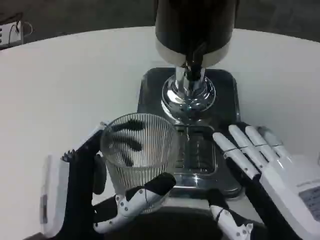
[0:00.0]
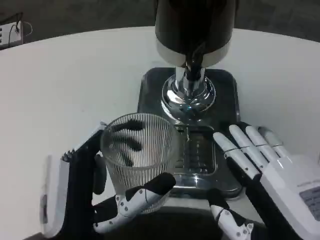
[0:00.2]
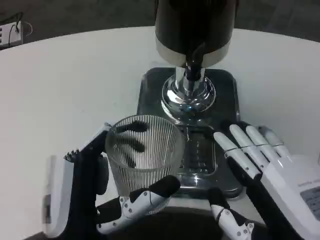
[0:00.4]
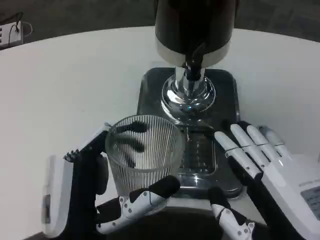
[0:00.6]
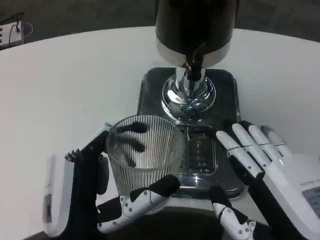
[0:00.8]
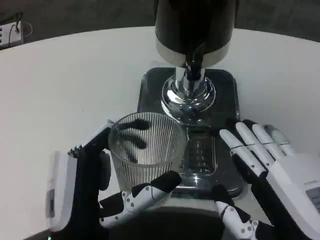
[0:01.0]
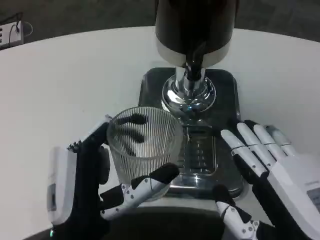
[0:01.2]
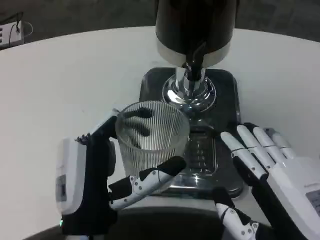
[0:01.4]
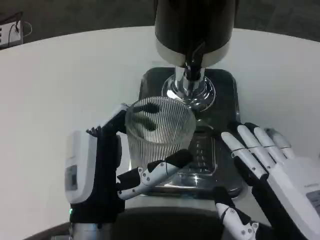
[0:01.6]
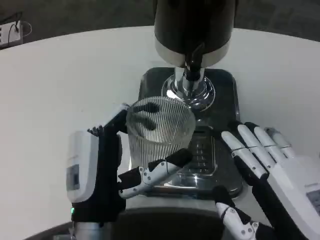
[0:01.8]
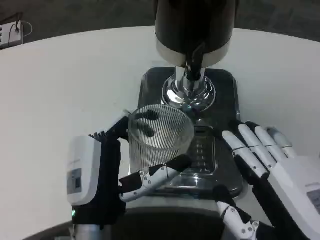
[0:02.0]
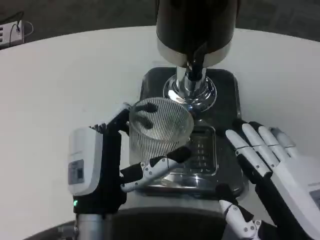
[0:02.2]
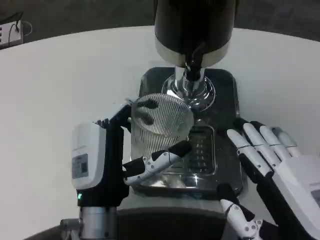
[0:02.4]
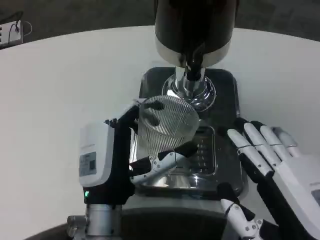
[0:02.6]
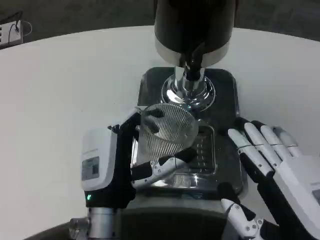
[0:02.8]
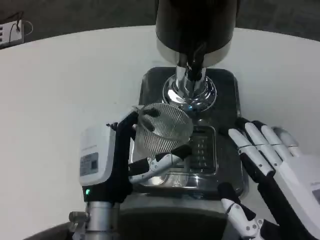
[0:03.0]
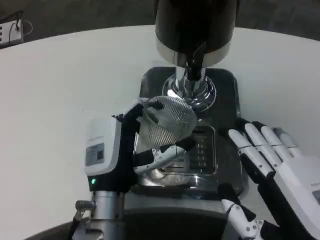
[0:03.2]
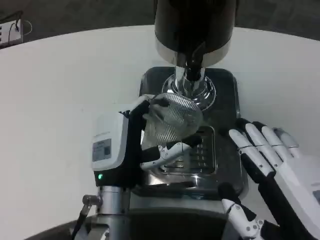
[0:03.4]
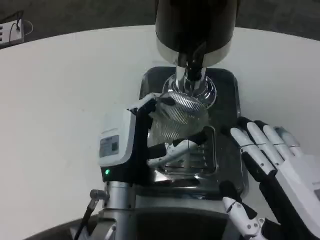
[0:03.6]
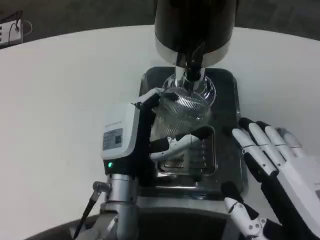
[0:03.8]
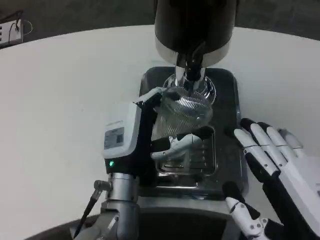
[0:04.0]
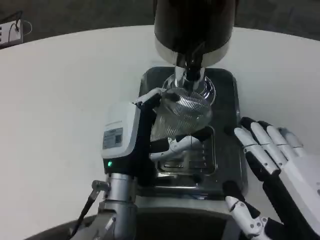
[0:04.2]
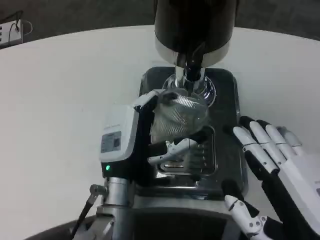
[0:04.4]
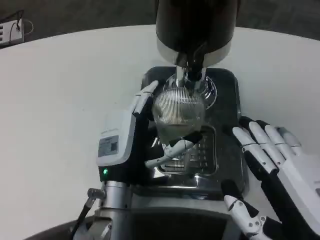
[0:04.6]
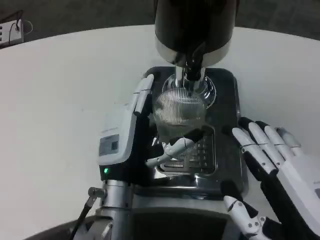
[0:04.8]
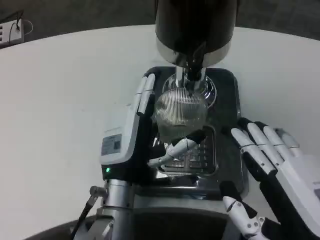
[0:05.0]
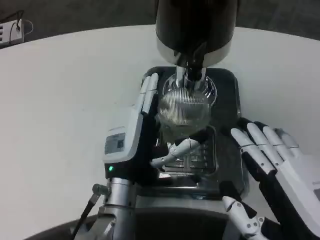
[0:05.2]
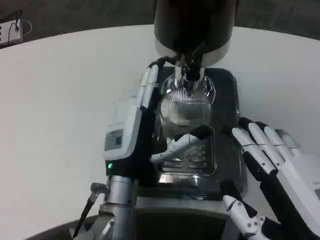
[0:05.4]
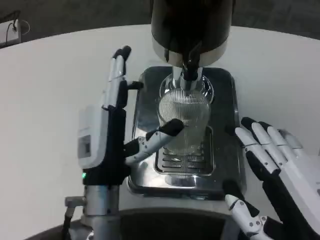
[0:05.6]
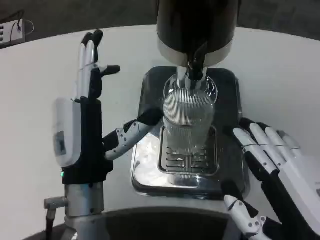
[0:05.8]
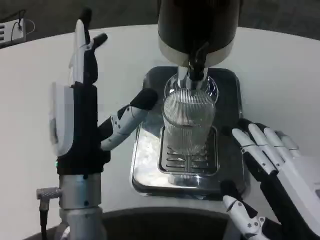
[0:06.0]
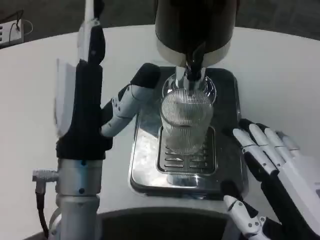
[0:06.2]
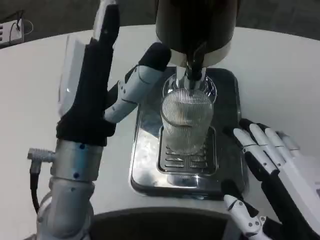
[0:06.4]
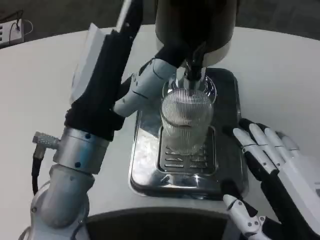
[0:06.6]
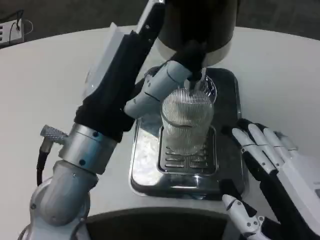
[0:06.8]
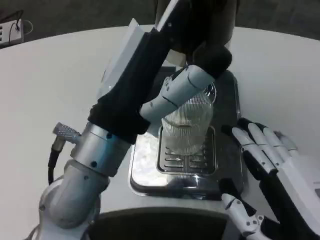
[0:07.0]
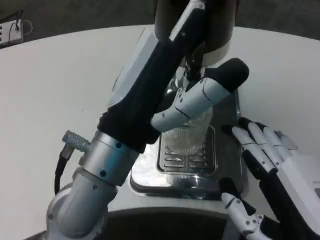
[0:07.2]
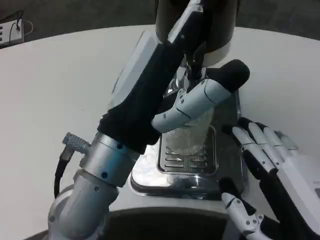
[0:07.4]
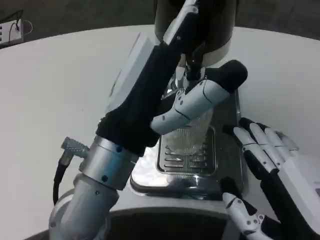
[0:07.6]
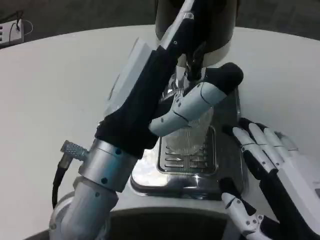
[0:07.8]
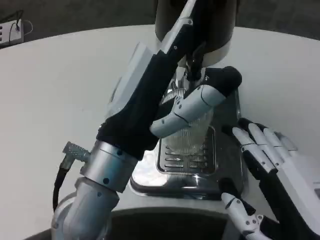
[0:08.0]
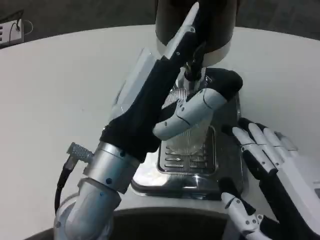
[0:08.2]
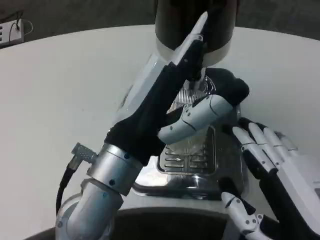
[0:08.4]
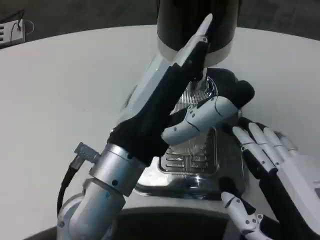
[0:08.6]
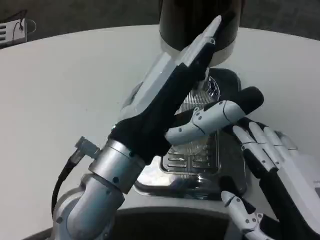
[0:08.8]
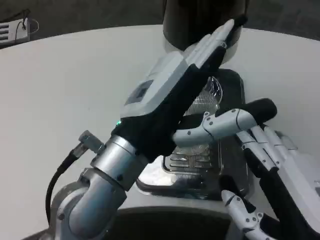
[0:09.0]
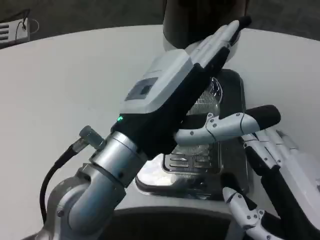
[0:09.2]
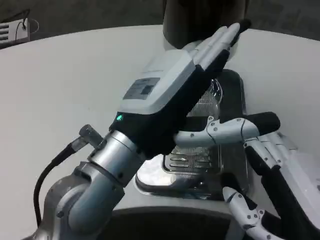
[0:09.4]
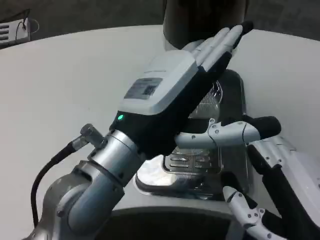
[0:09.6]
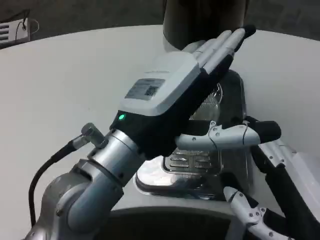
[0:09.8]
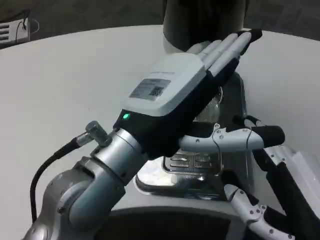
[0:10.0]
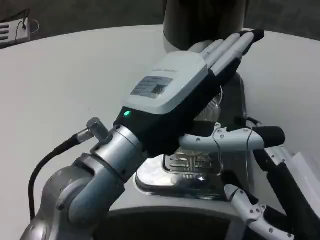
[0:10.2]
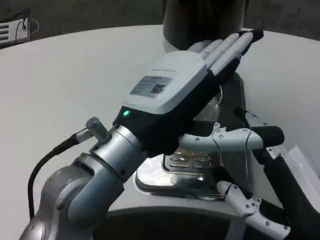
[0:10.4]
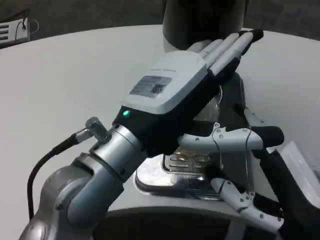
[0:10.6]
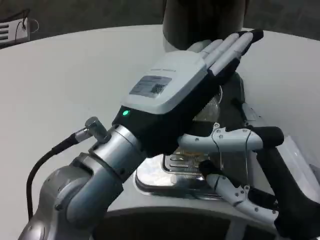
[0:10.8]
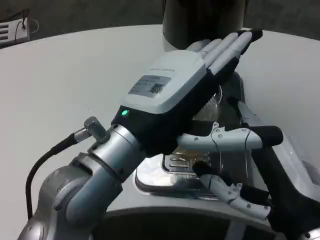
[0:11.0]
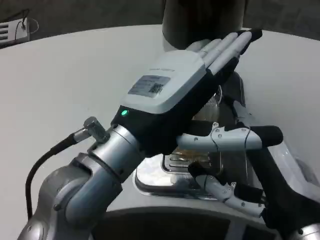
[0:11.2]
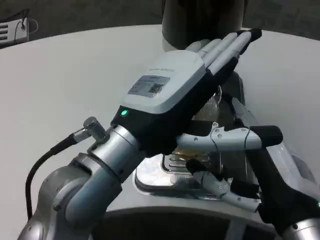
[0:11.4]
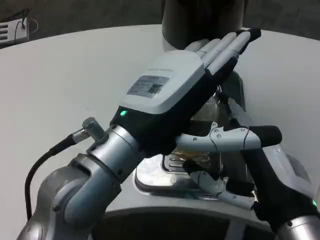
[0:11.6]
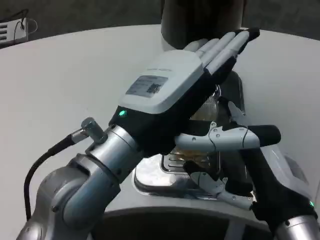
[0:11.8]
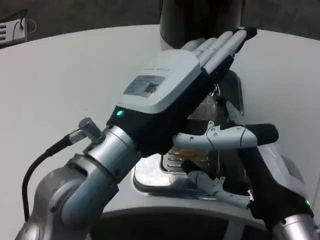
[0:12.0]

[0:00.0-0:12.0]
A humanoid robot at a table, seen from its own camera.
Task of the whole recording: Grasp the cup under the faucet to collect the drink, then remove the cup.
0:00.0 to 0:01.6: The left hand heads forward, covering some 5 cm.
0:01.6 to 0:03.0: The left hand shifts about 5 cm forward.
0:03.0 to 0:04.4: The hands make only small movements.
0:04.4 to 0:06.0: The left hand heads upward and backward, covering roughly 10 cm.
0:06.0 to 0:07.6: The left hand is displaced upward by about 5 cm.
0:10.4 to 0:12.0: The right hand travels forward by about 5 cm.

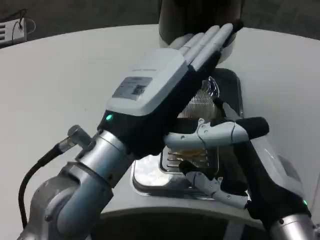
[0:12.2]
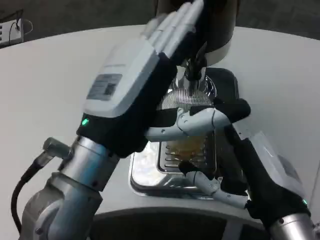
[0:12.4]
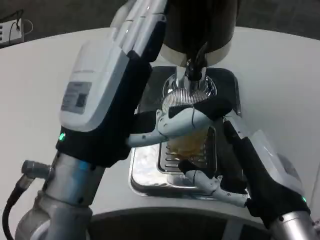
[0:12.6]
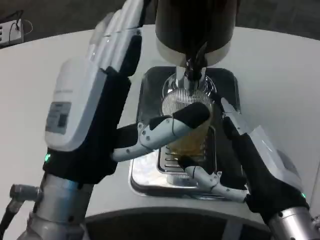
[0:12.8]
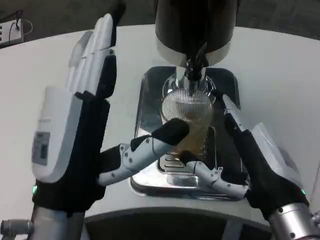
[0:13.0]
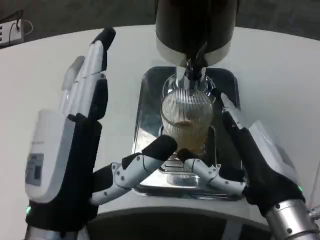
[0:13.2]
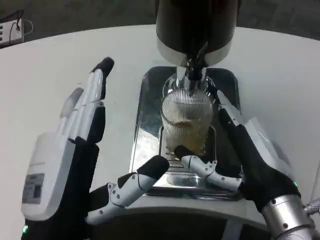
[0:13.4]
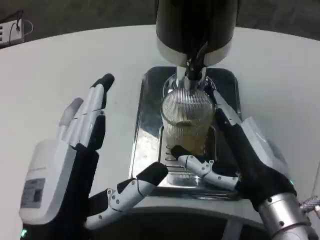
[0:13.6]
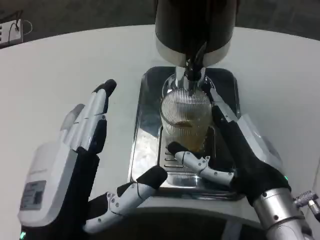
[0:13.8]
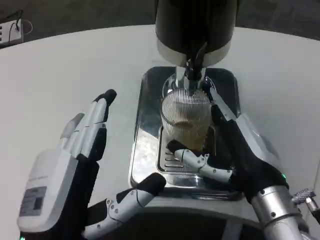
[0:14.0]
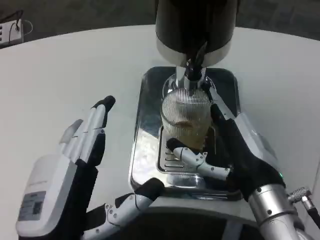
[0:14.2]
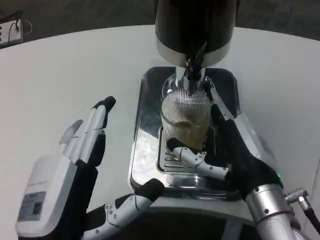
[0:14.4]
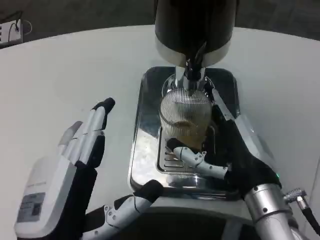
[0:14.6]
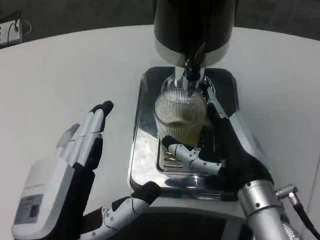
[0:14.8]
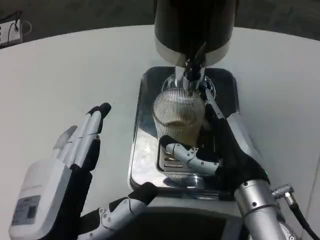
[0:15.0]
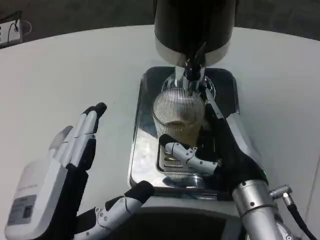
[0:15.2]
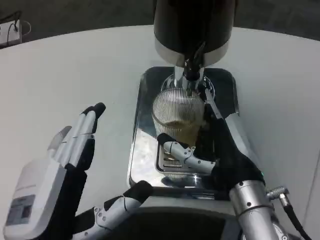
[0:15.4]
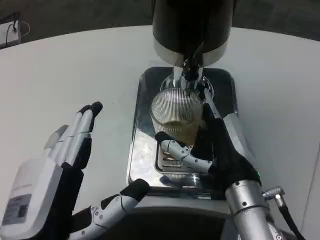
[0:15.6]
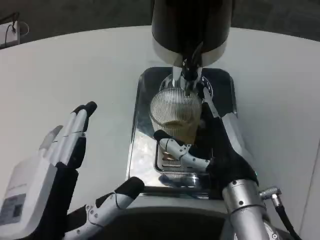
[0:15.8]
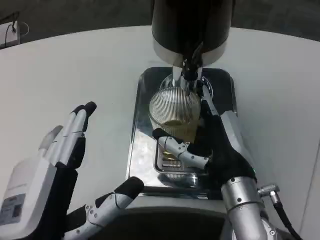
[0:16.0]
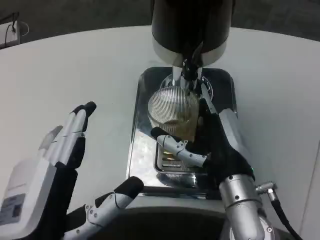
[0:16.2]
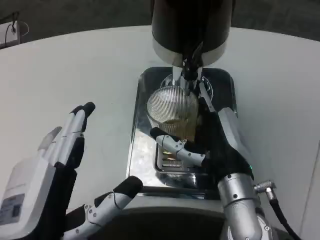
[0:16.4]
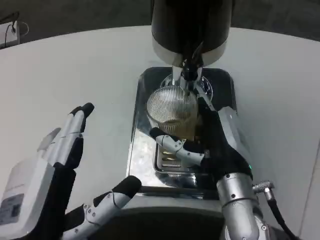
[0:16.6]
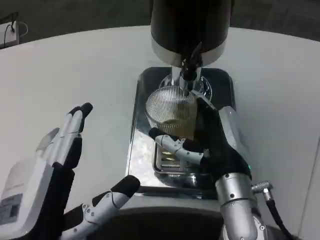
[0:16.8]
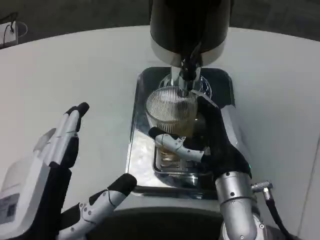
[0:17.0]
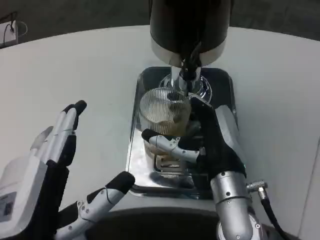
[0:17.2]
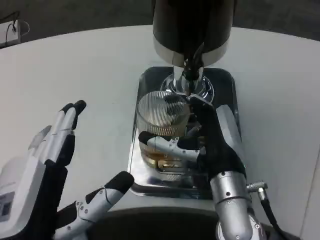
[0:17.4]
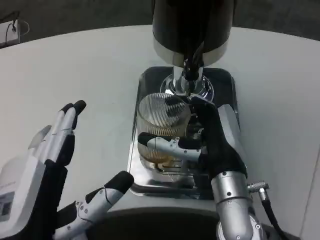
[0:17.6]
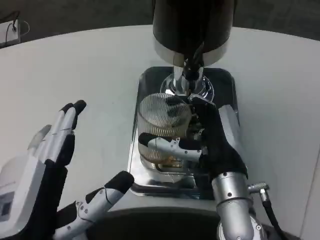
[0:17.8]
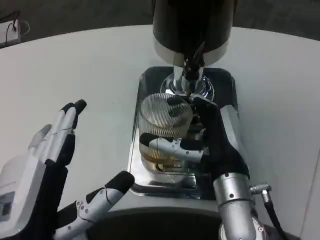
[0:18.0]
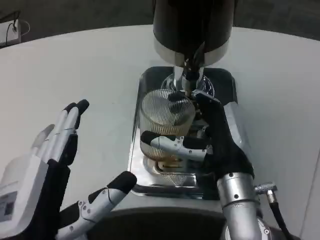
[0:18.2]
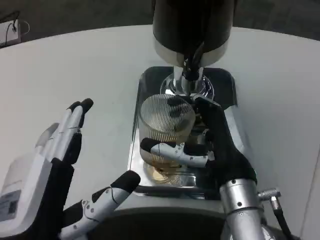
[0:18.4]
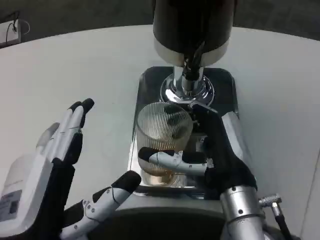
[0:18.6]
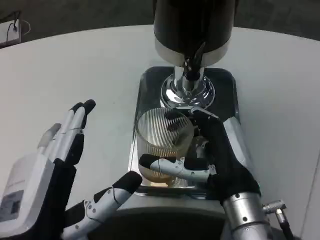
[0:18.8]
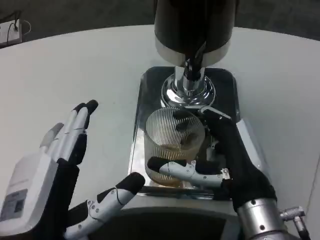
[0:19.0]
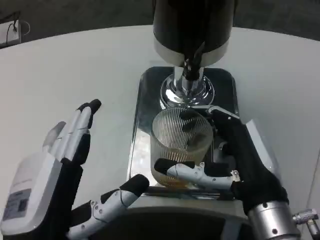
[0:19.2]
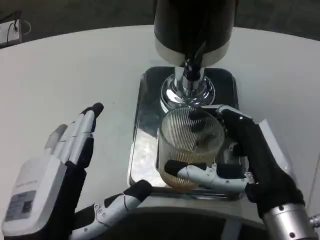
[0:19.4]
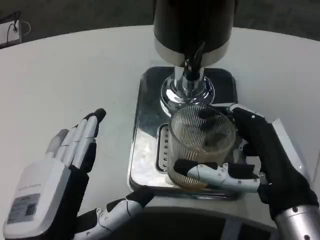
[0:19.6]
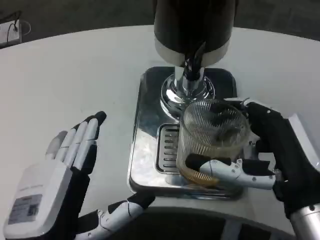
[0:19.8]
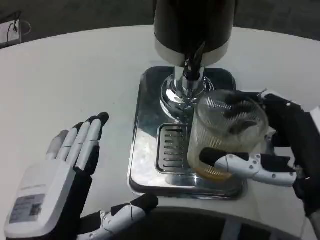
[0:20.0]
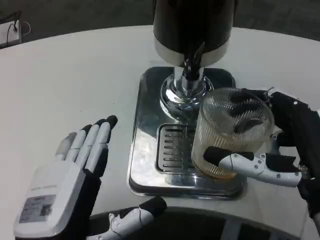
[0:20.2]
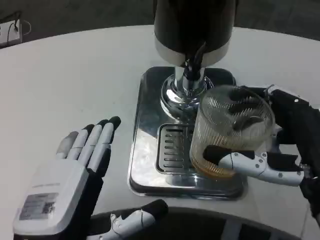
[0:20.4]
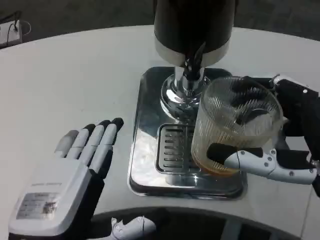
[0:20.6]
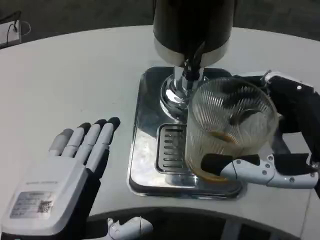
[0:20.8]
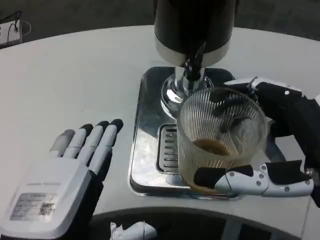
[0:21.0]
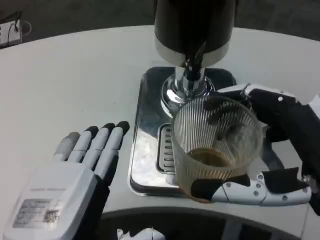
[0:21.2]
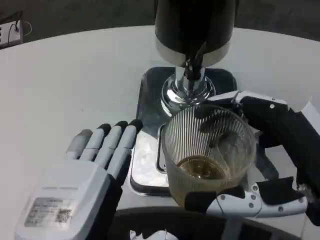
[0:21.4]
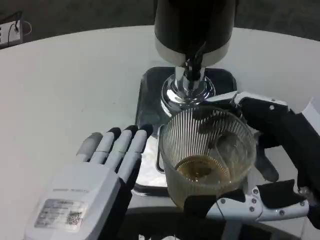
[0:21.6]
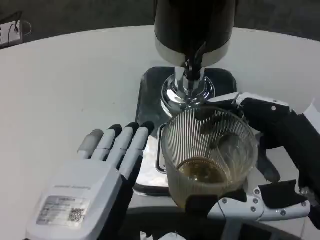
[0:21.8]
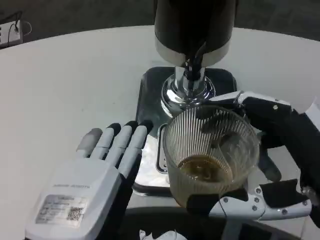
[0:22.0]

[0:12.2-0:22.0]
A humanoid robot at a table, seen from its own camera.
Task of the whole recording: Grasp the cup under the faucet to collect the drink, then remove the cup.
0:12.2 to 0:13.6: The left hand moves downward and backward, roughly 10 cm.
0:17.8 to 0:19.2: The right hand is displaced backward by about 5 cm.
0:19.2 to 0:20.6: The right hand shifts approximately 10 cm backward, to the right and upward.

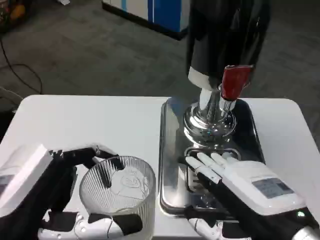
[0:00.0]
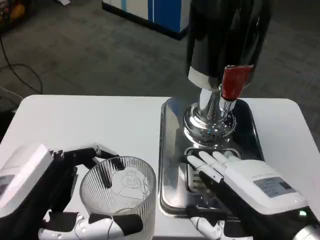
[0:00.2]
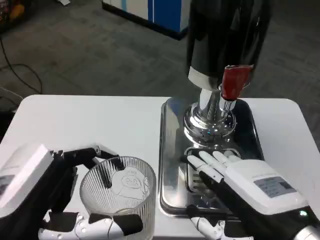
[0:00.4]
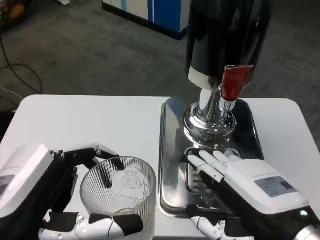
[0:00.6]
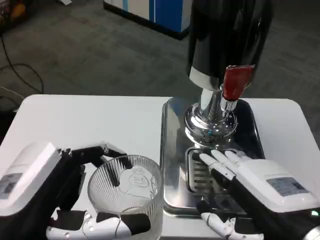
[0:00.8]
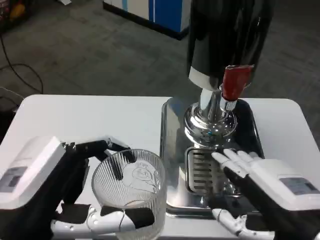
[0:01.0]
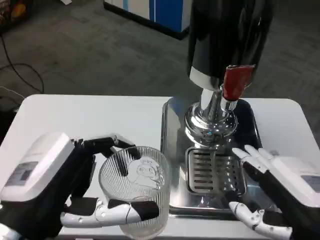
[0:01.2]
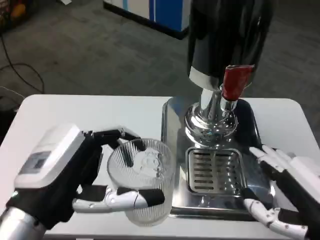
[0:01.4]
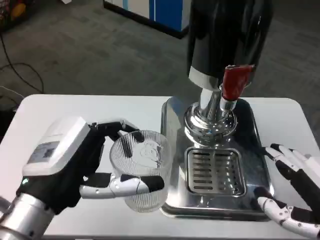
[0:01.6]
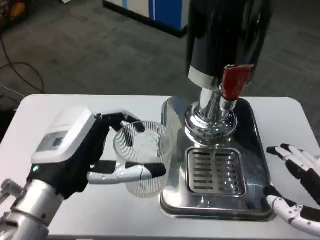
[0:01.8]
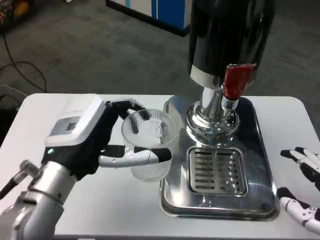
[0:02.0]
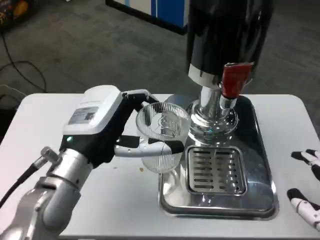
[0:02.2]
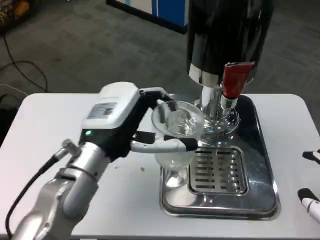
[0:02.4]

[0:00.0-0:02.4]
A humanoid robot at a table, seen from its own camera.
Task of the whole recording: Grasp the cup under the faucet to collect the drink, then remove the cup.
0:01.2 to 0:02.4: The left hand shifts approximately 15 cm forward and to the right. Meanwhile the right hand shifts approximately 5 cm to the right.
